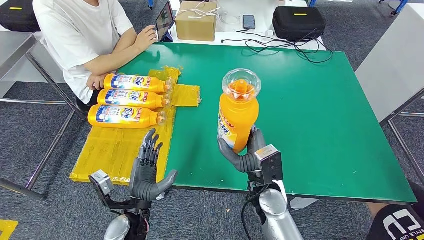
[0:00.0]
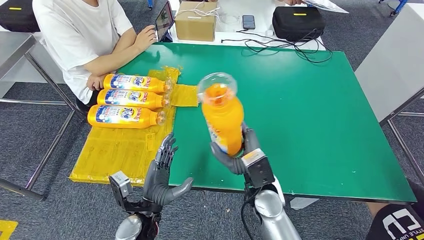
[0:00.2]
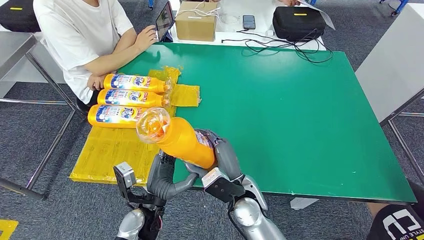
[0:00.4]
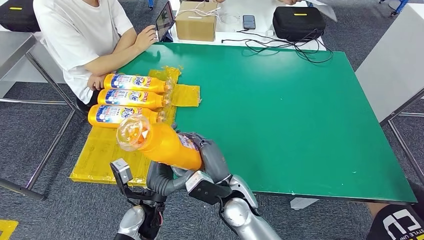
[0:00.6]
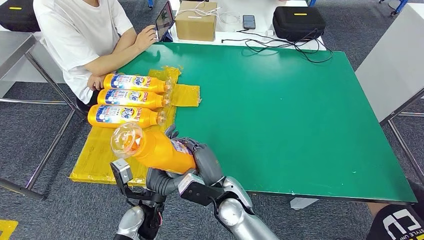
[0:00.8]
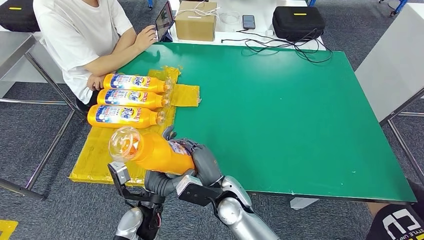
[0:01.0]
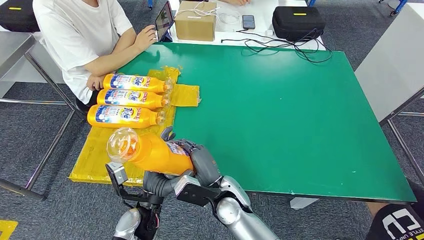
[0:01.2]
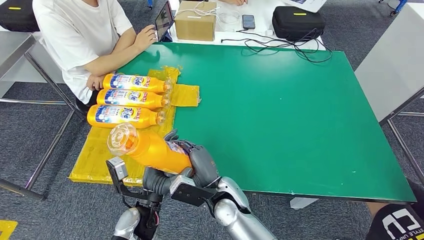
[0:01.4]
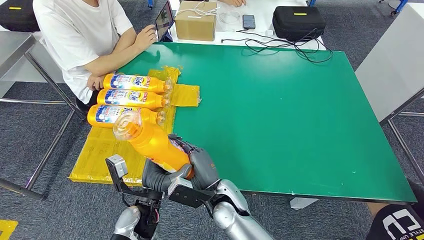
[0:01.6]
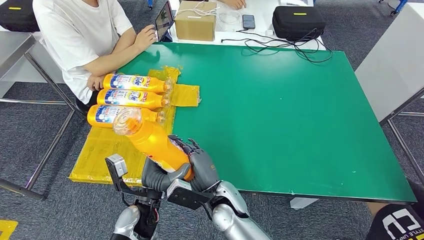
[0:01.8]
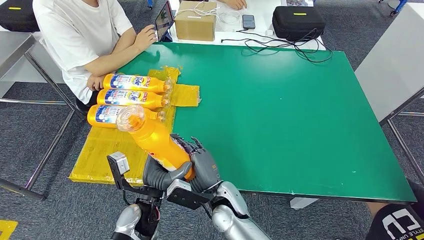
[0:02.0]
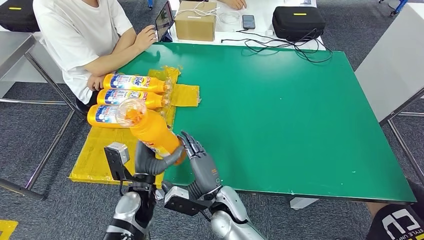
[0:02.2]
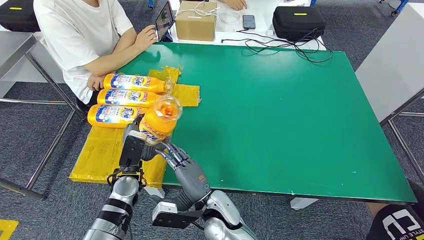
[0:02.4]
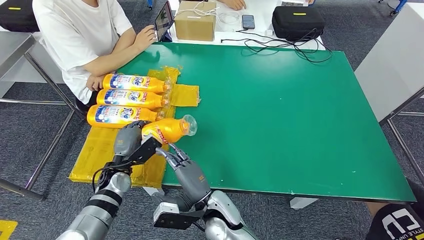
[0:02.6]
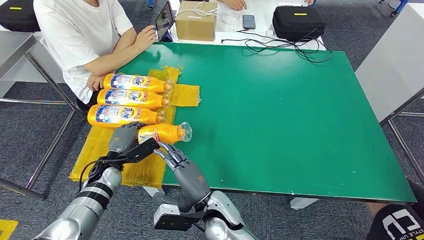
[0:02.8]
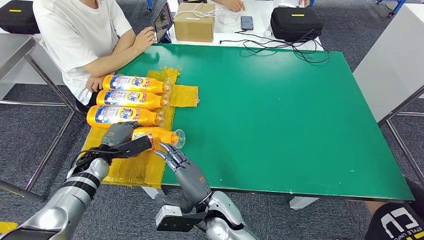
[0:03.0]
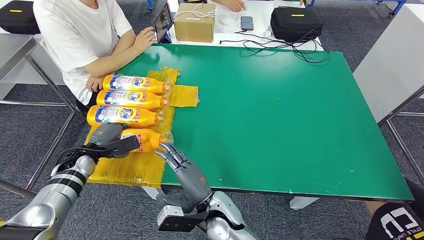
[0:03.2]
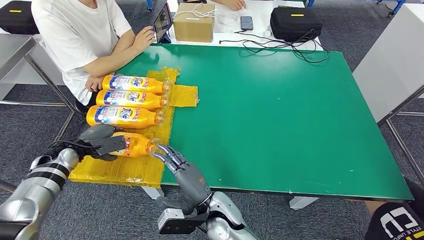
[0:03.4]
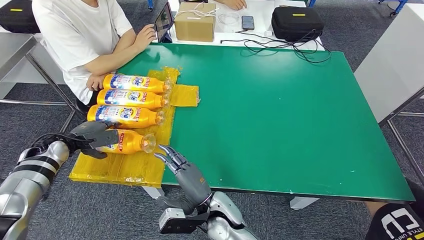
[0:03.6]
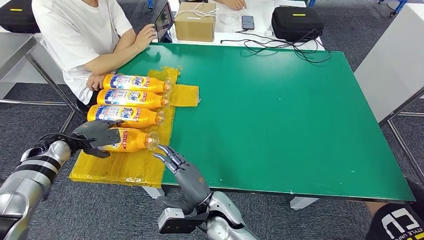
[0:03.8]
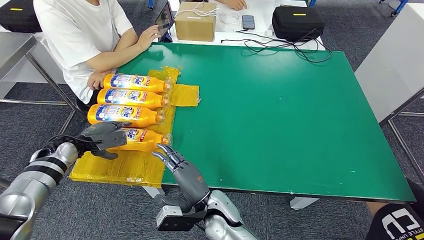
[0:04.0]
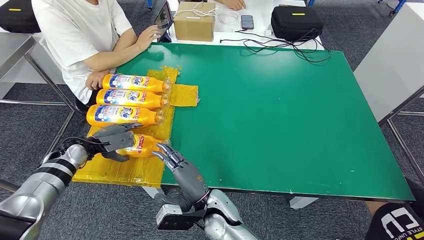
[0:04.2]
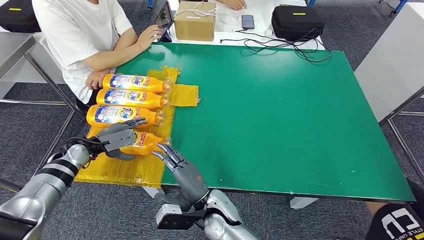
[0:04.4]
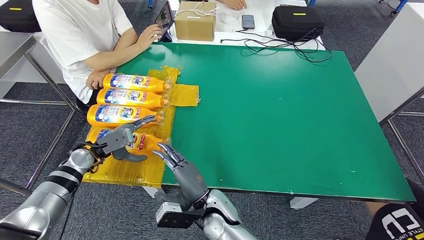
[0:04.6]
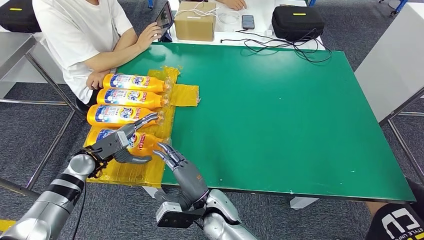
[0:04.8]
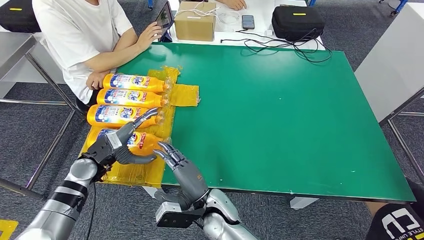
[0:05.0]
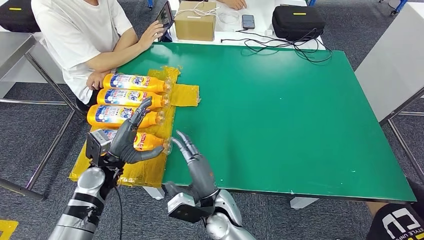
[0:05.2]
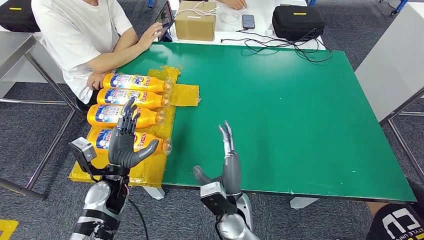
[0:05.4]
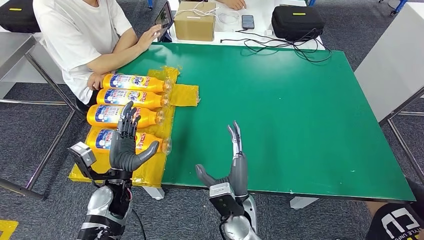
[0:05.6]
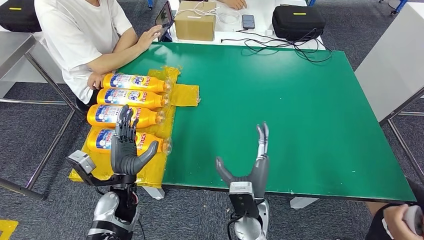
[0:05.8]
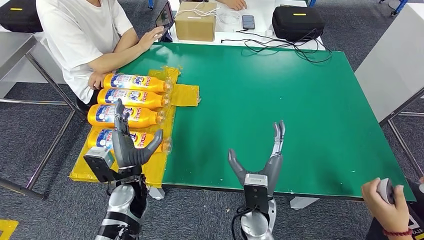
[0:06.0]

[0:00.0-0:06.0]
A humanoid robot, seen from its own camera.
Step, 0:00.6 to 0:06.0: Flip the fast-moving consumer goods bottle to the front side.
0:00.0 to 0:01.6: The right hand travels to the left by some 10 cm.
